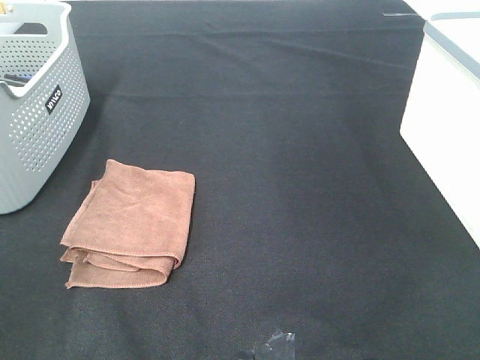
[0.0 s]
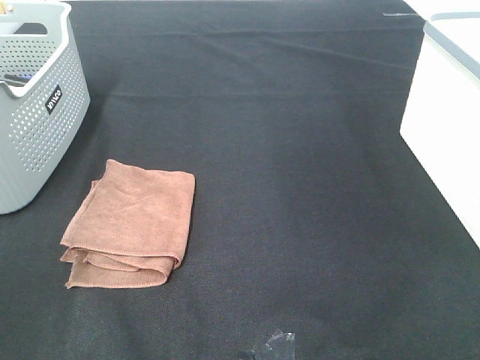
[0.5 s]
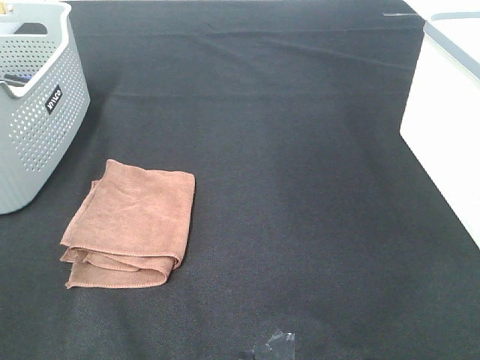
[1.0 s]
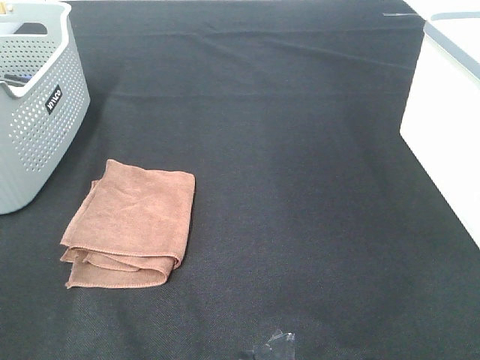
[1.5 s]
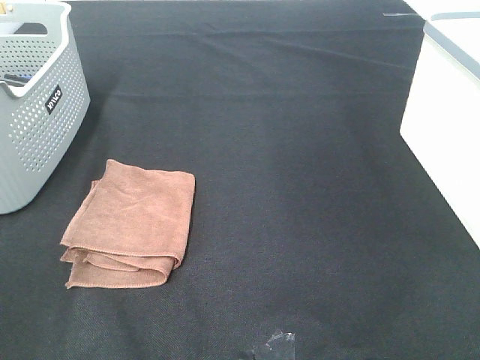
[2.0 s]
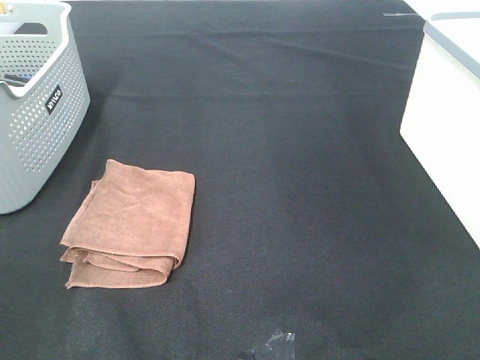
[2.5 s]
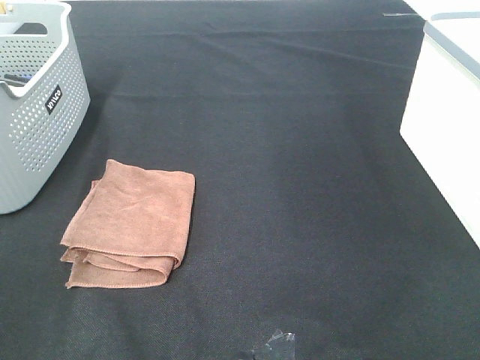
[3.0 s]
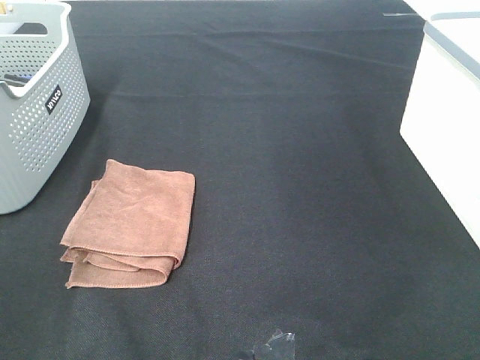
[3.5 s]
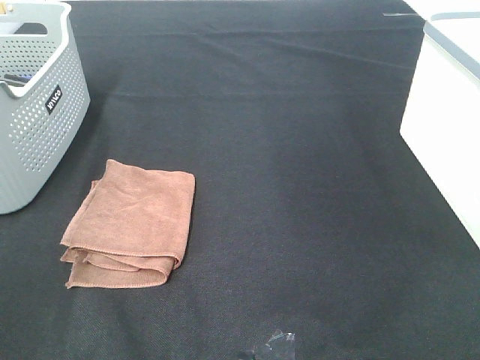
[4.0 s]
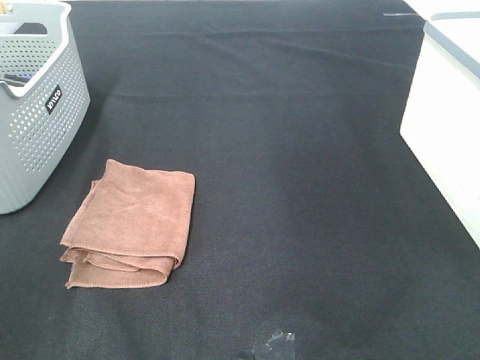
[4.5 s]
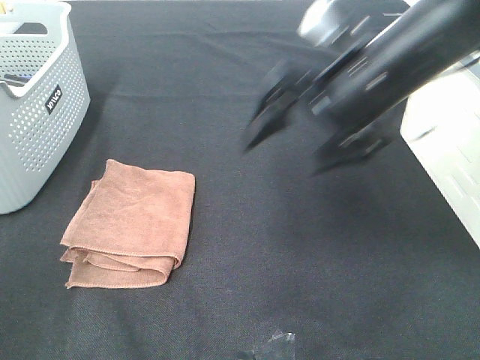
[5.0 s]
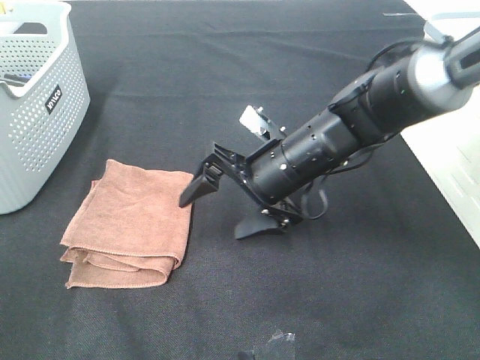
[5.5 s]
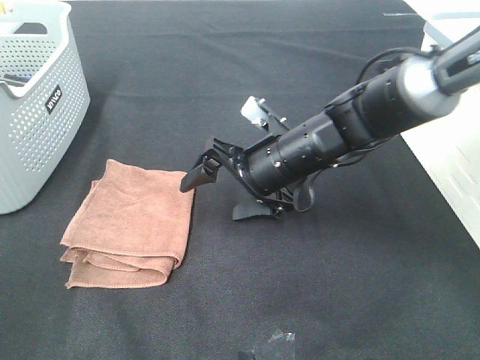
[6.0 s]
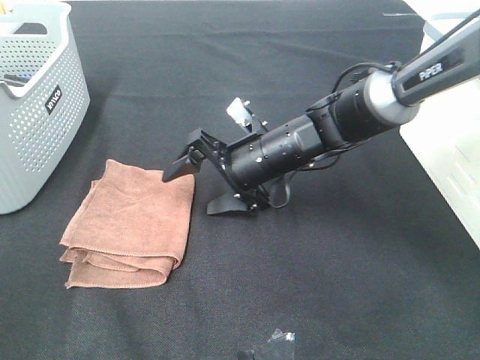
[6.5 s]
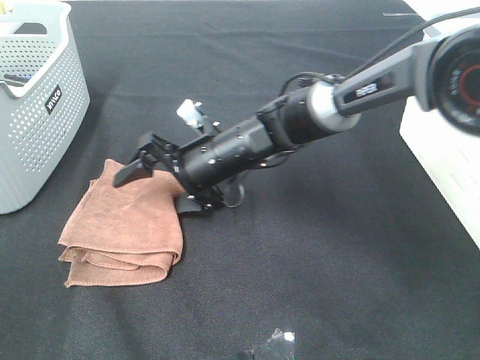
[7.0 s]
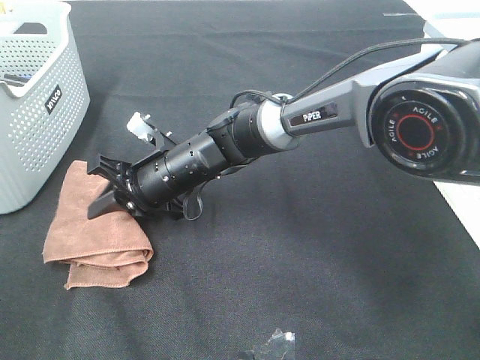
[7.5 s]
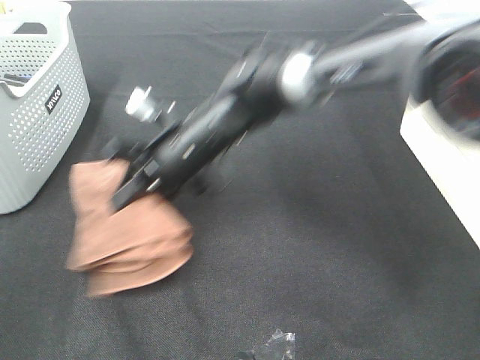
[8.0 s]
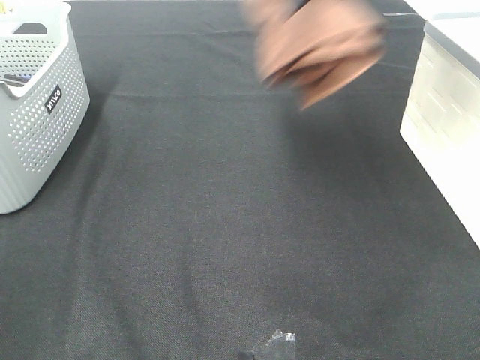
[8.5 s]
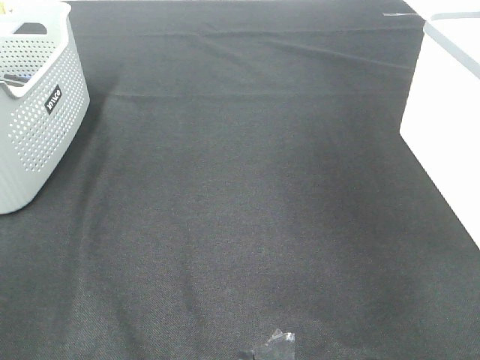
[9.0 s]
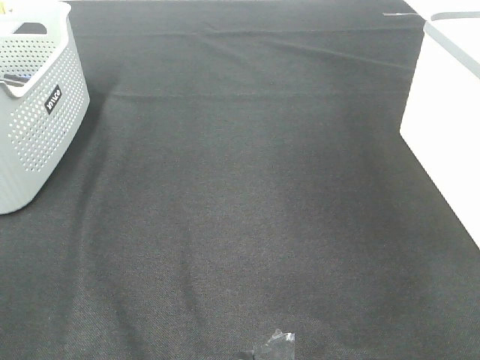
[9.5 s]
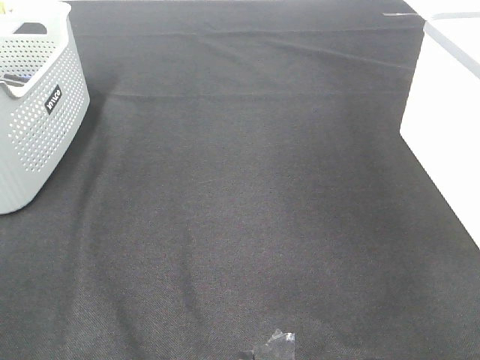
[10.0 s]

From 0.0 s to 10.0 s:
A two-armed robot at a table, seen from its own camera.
Step, from 0.0 s to 7.5 s: Right hand: grab the folded brown towel.
Step, from 8.0 s to 9.5 s: Right hand: place the brown towel in right basket.
From 0.0 s to 2.0 s: Neither gripper changes place.
From 4.0 s to 6.0 s: The right gripper heads forward, downward and to the left, covering some 40 cm.
From 6.0 s to 8.0 s: The right gripper goes some 10 cm to the left, and closes its fingers.
From 8.0 s to 10.0 s: The right gripper moves to the right and upward, about 50 cm, and opens its fingers.

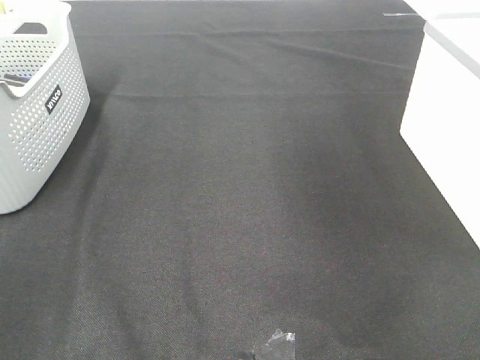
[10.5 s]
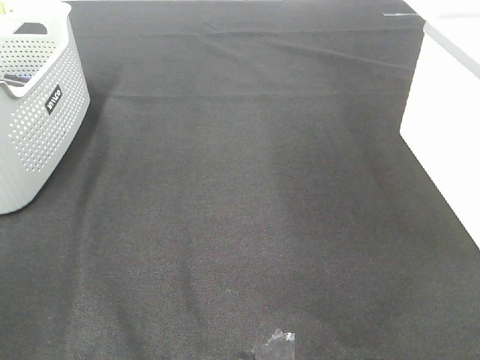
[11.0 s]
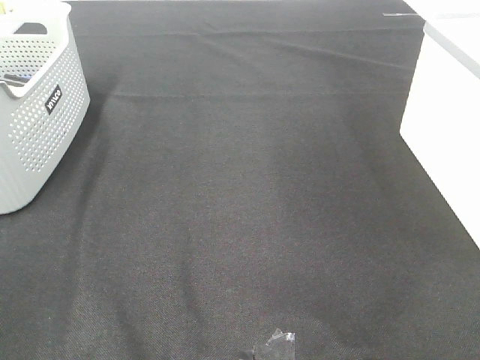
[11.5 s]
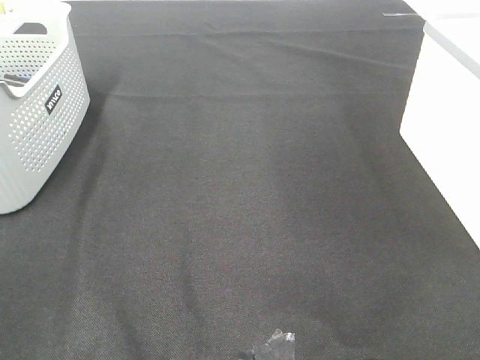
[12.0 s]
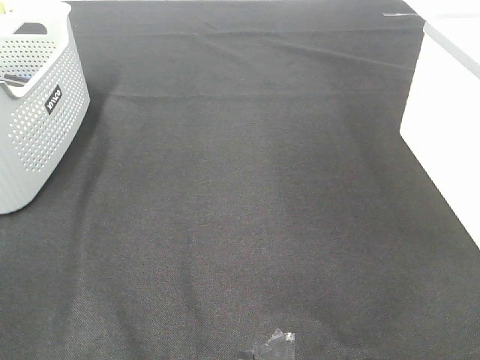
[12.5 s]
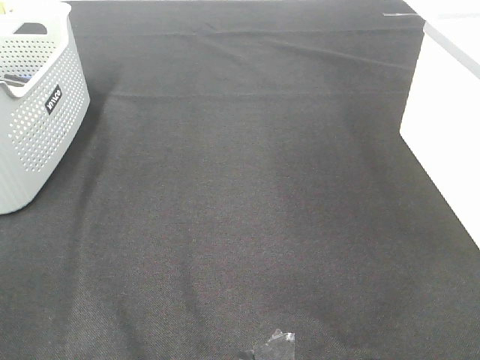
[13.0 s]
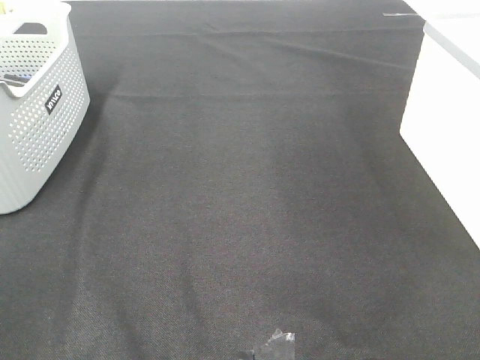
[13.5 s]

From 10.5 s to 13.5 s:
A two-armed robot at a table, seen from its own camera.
From 12.0 s to 13.5 s: The two grippers keep their place.
